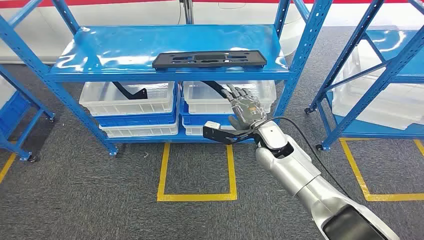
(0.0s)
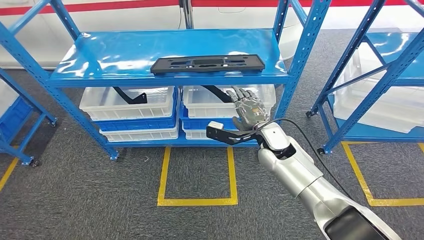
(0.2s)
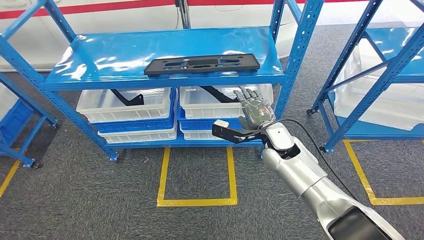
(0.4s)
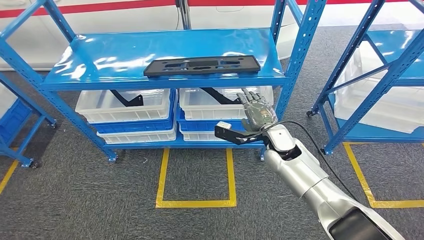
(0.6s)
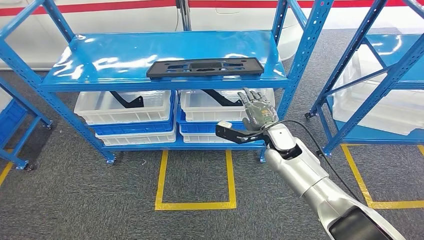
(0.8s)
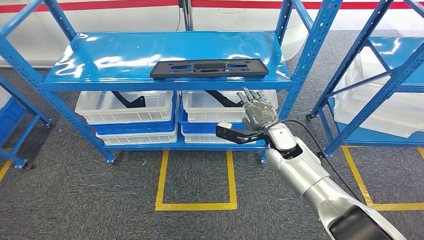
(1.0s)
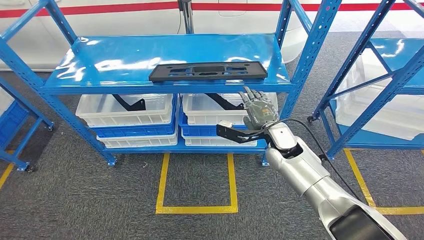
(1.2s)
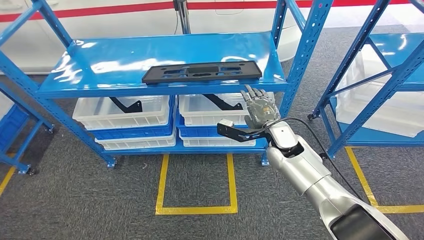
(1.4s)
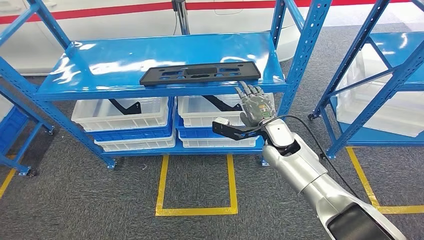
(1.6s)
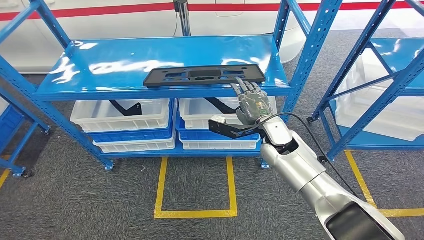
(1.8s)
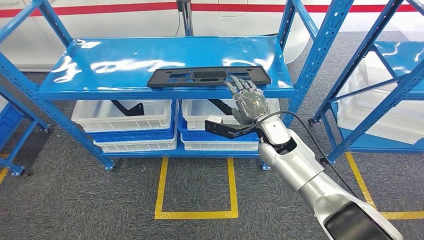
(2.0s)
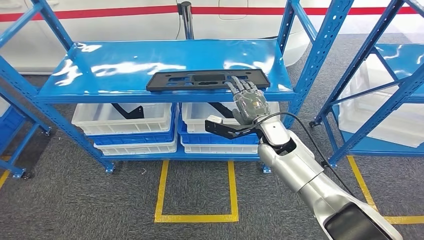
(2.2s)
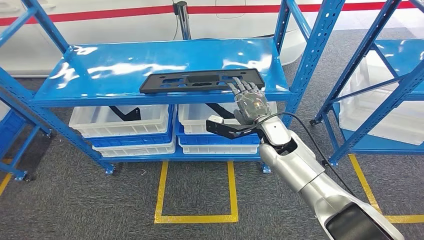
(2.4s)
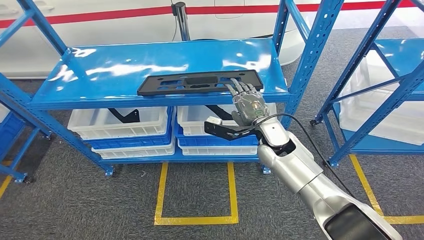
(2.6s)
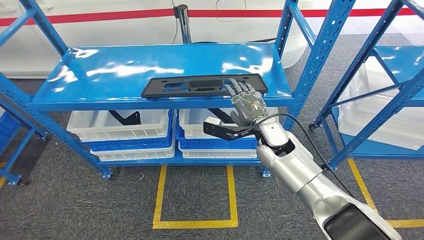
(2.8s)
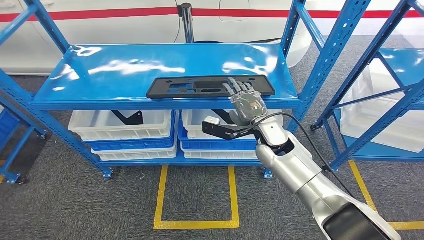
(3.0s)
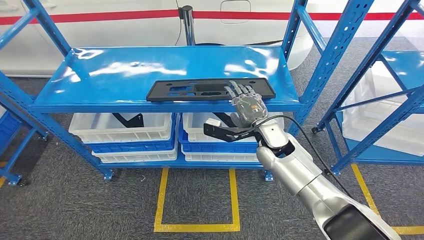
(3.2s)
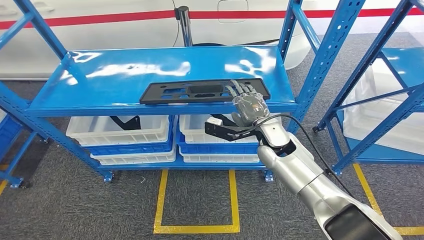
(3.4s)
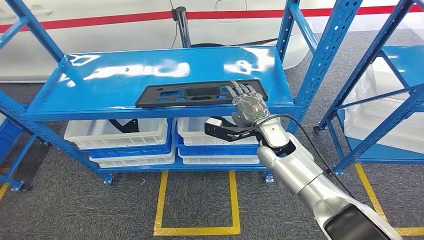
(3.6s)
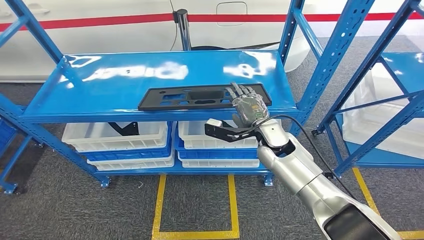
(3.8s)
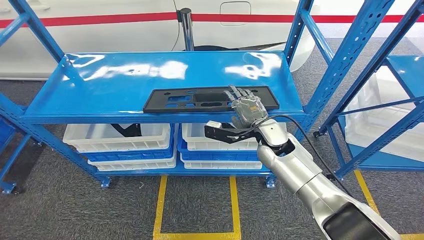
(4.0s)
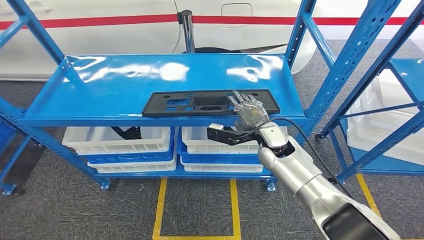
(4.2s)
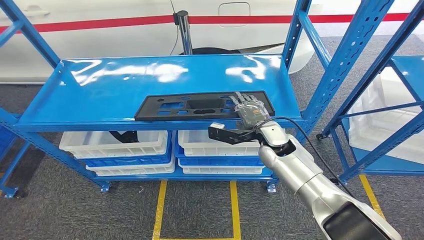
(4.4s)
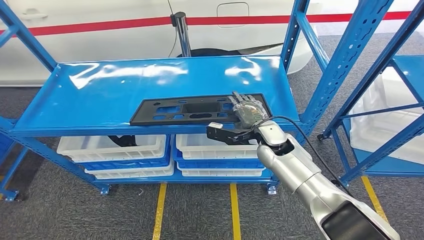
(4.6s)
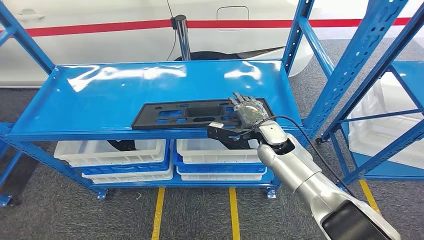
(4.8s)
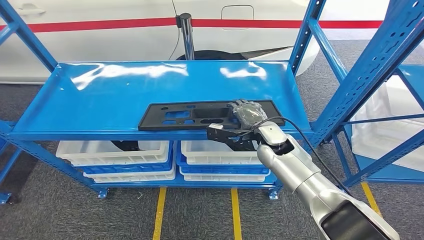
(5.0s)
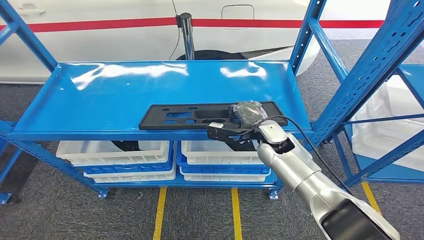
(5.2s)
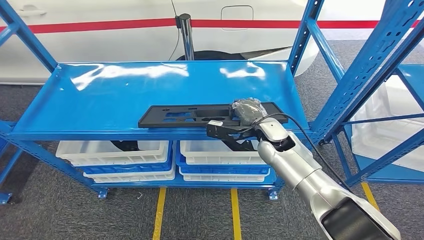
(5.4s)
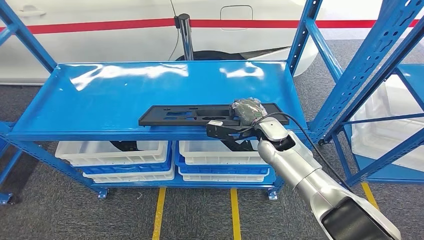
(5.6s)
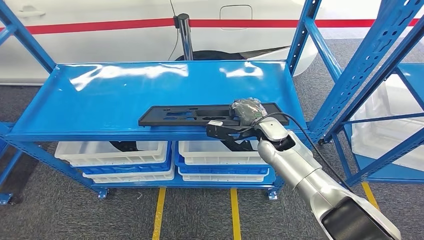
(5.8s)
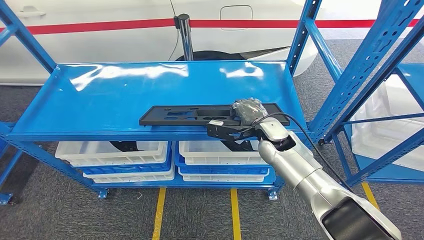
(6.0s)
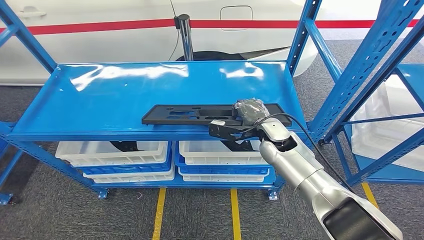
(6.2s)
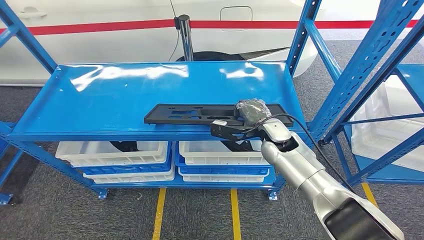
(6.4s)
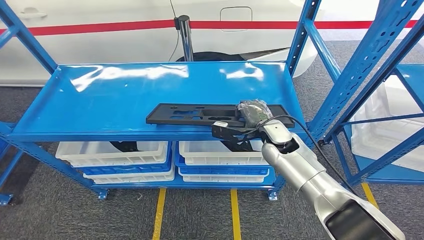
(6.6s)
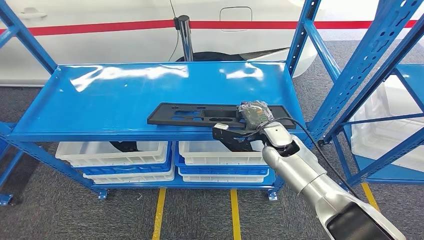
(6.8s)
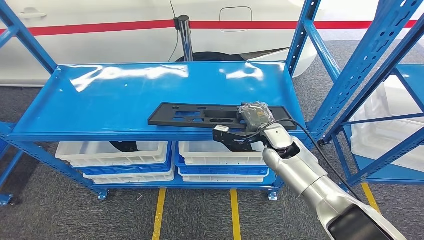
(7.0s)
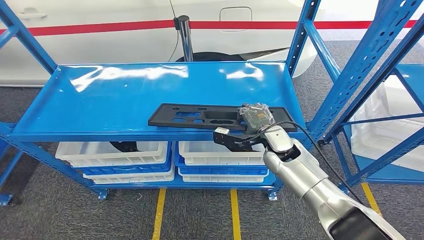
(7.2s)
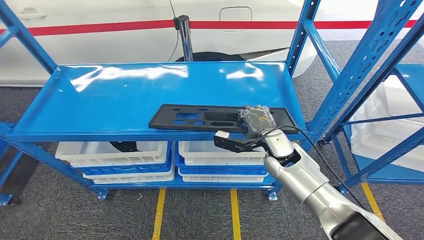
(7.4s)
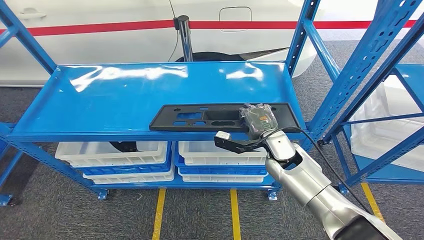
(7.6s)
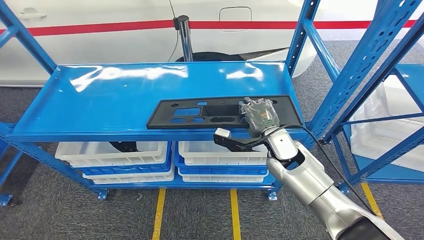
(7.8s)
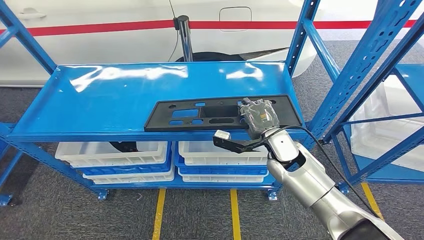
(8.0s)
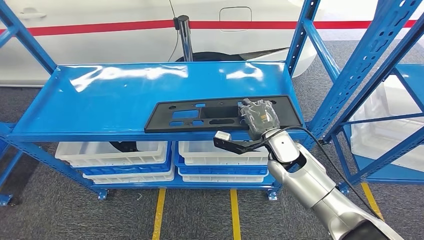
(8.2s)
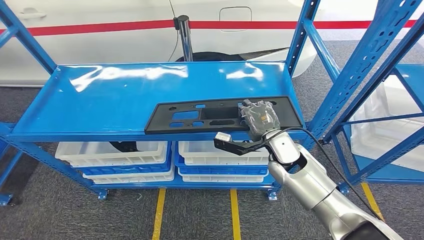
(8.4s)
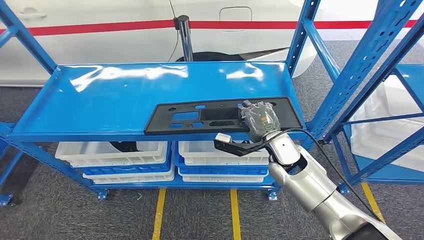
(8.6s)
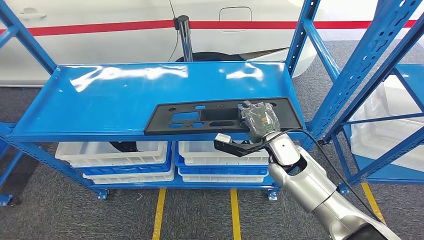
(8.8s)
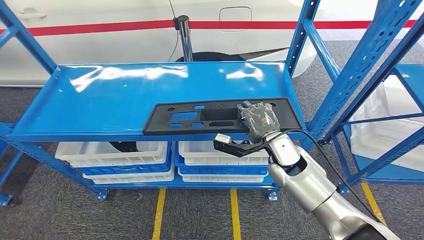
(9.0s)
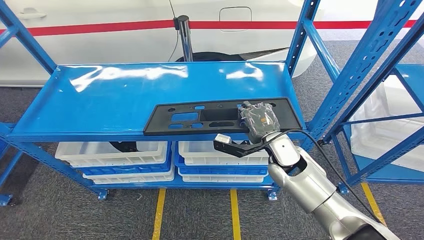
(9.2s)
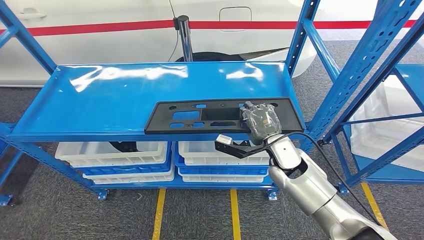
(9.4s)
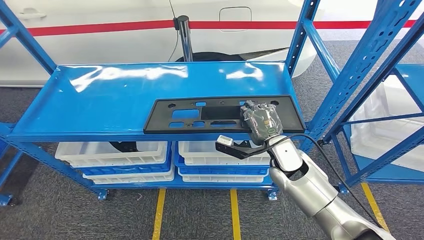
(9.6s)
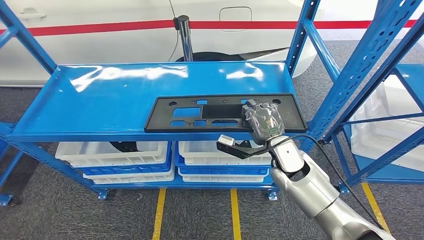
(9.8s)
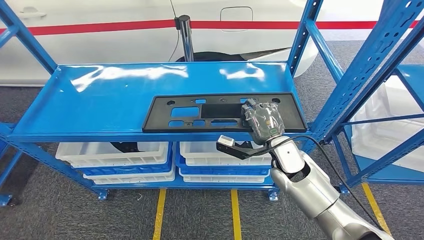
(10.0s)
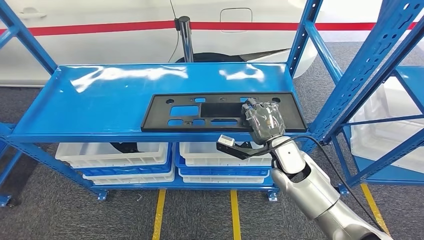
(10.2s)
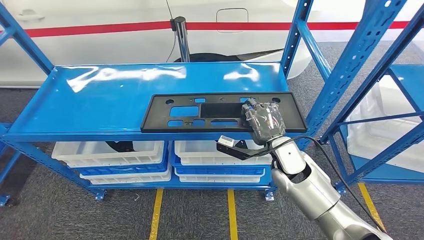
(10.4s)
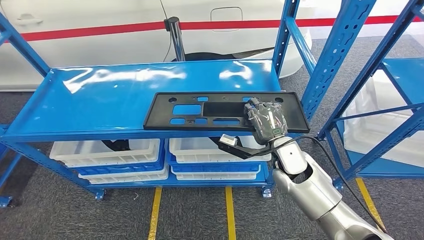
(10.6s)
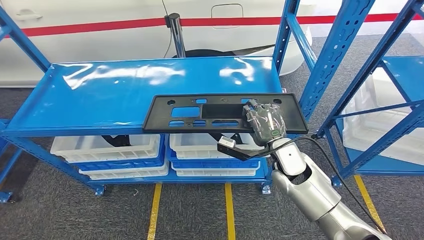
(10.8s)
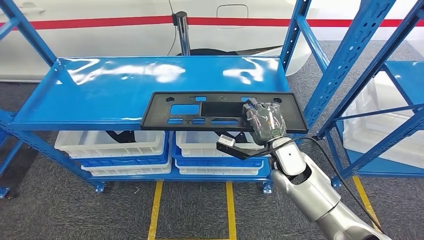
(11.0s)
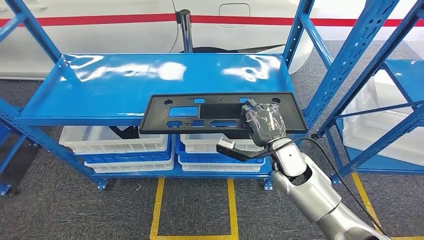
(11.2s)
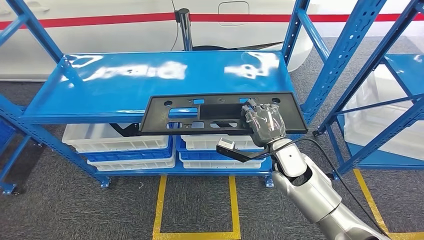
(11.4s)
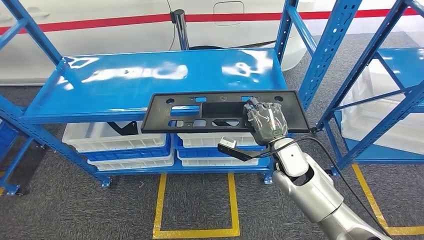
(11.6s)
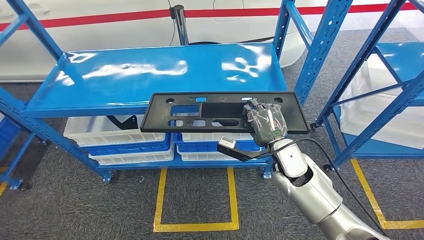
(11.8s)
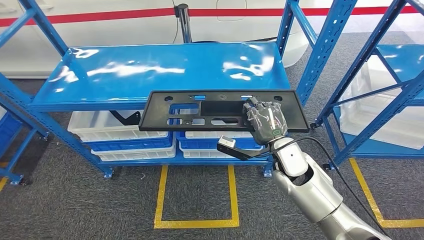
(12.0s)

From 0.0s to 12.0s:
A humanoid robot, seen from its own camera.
From 6.0s to 9.0s: The hands move only a little.

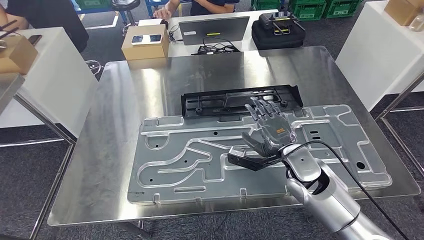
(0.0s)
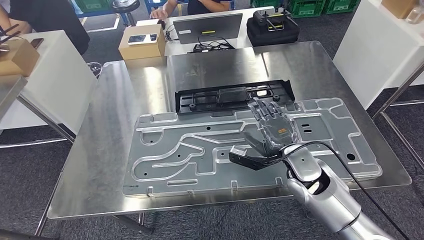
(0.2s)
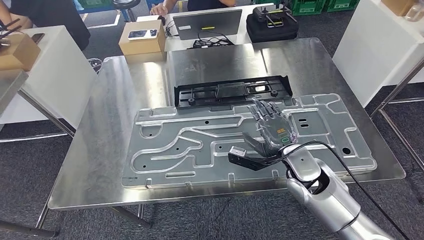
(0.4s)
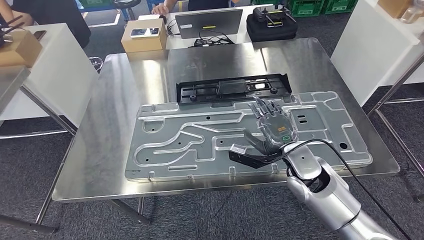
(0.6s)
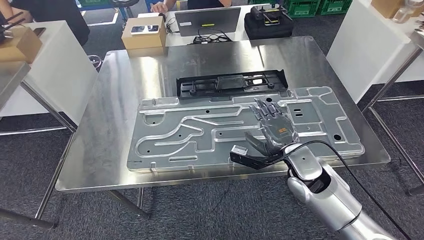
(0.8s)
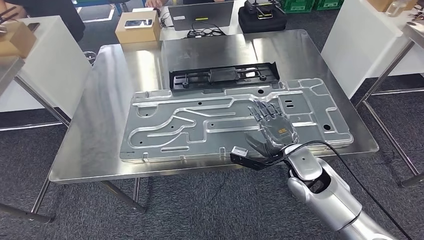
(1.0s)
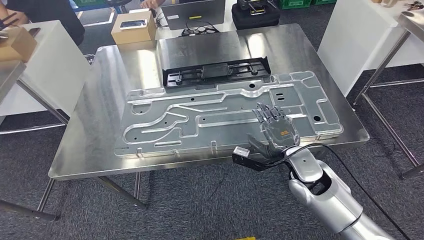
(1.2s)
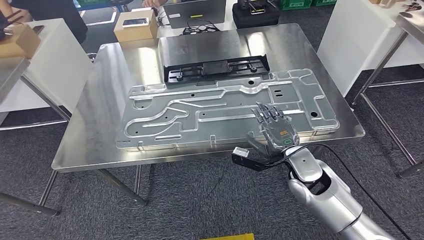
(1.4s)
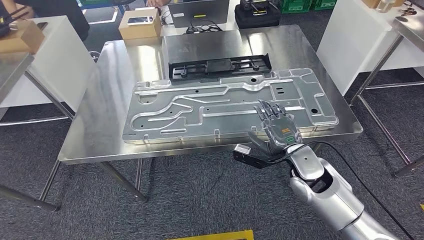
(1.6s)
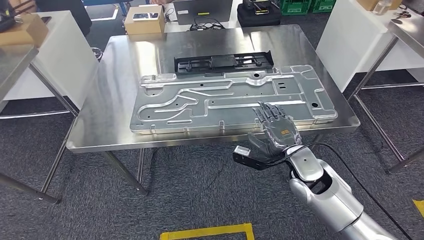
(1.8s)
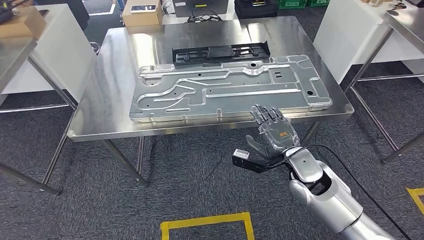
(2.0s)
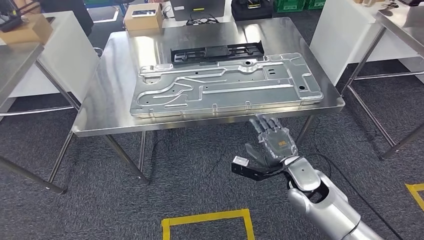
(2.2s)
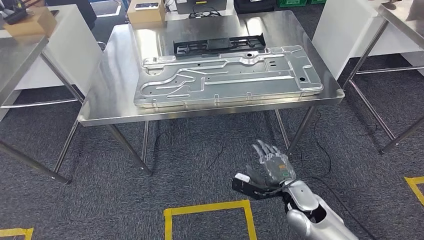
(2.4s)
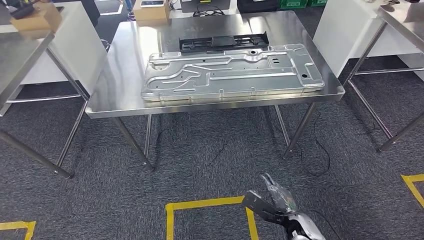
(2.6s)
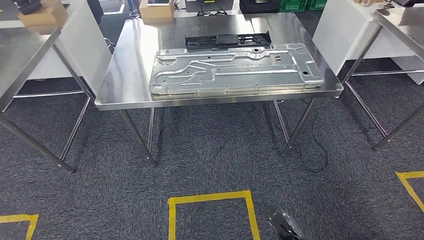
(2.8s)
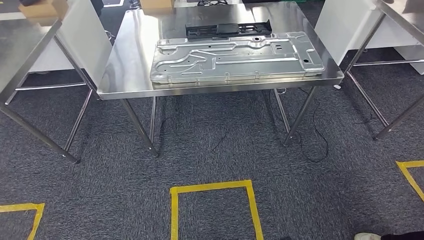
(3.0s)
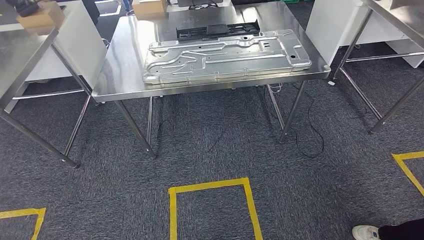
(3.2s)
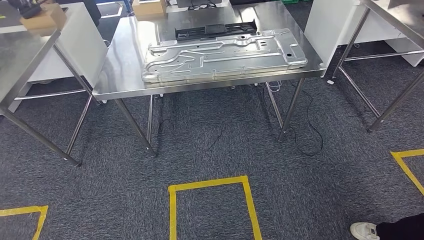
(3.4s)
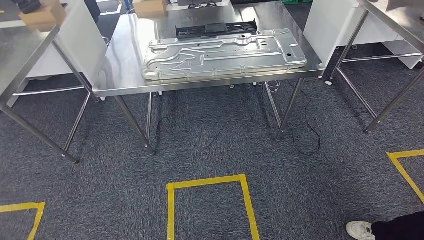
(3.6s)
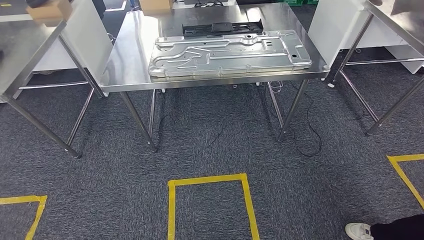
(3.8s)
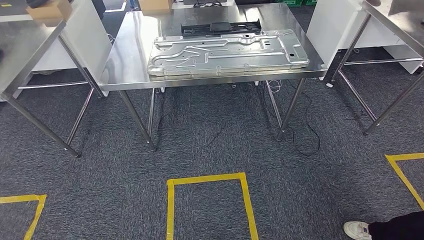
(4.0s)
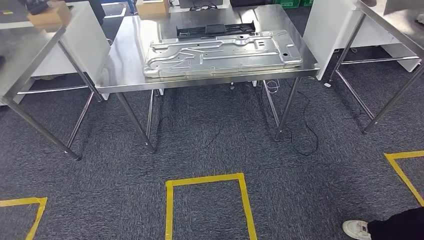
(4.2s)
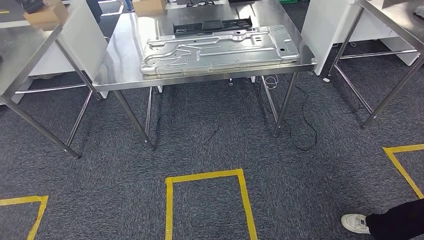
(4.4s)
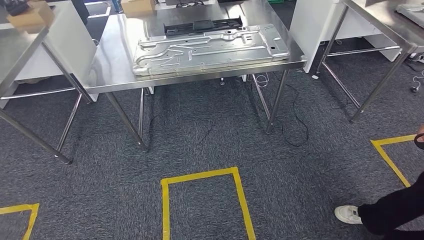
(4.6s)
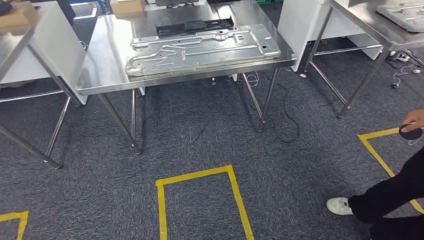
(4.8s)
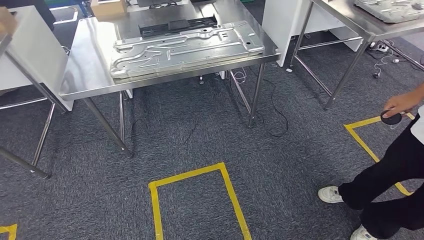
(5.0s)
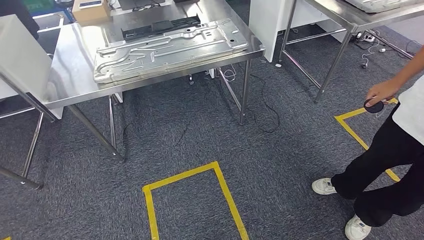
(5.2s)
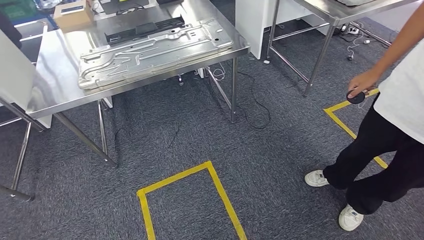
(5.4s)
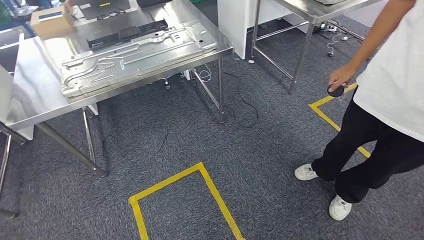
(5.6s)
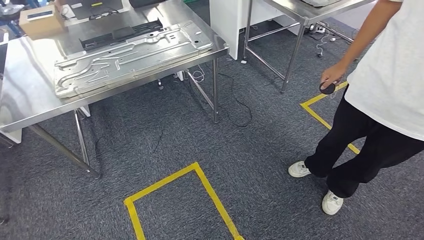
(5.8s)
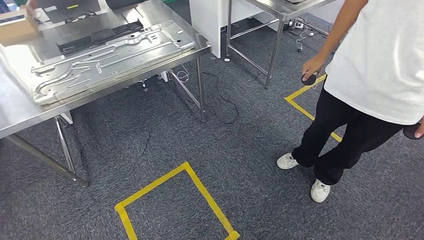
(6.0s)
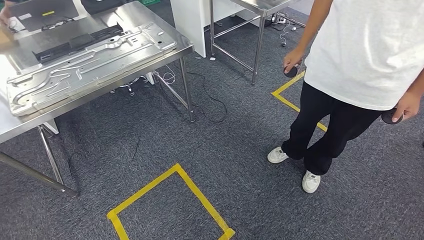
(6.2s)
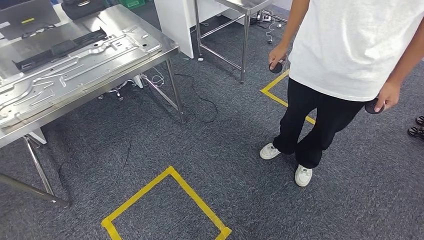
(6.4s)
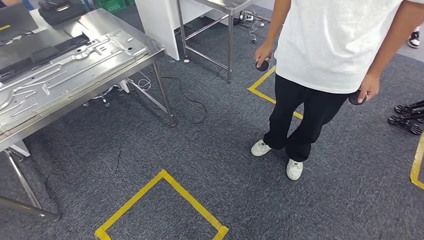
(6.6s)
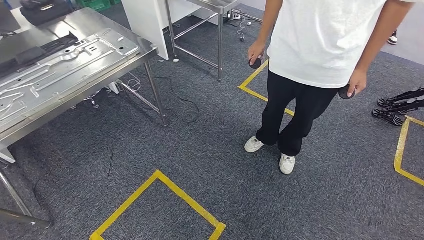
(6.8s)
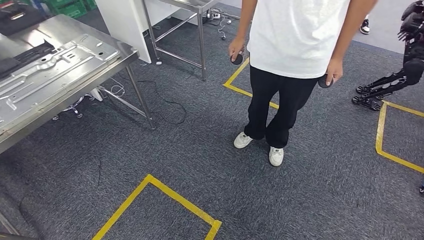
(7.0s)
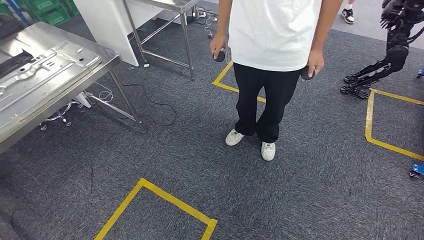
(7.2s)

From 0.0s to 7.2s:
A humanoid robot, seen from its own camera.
Step, from 0.0s to 3.6s: Insert the large material into the corresponding hole on the workbench.
